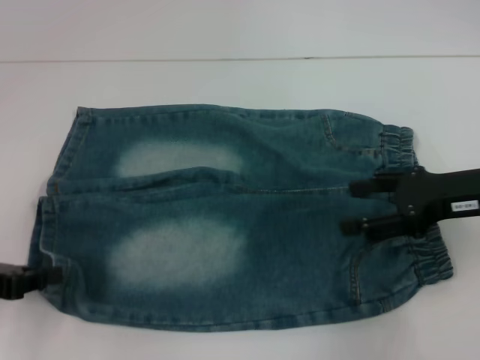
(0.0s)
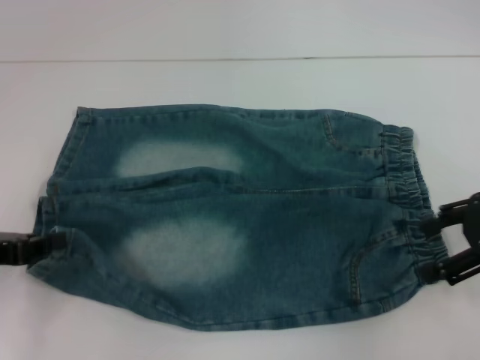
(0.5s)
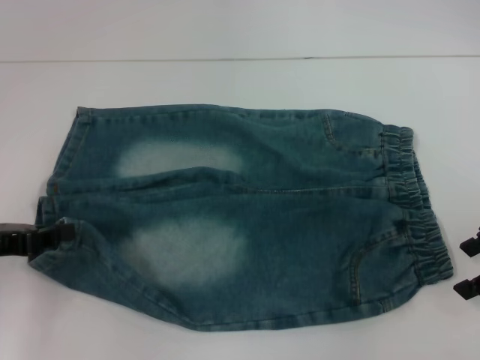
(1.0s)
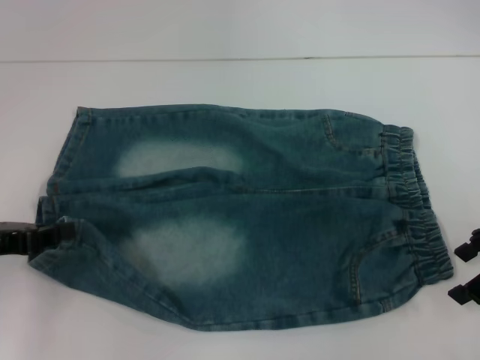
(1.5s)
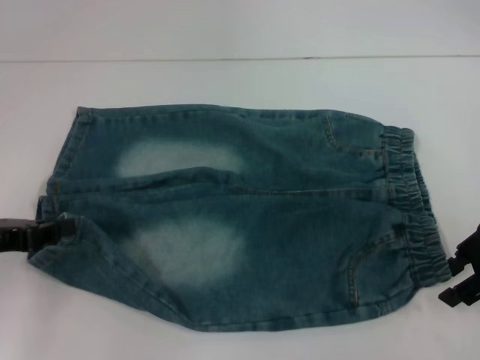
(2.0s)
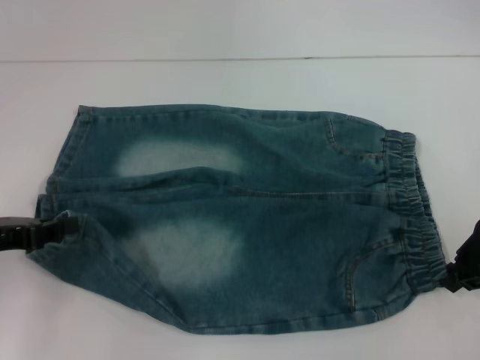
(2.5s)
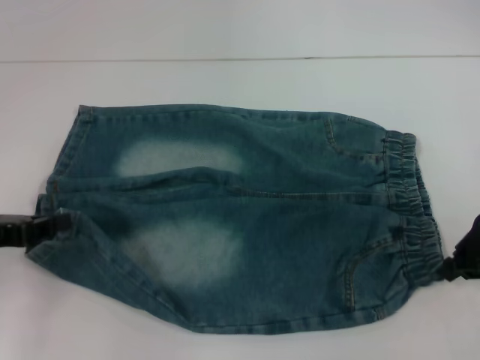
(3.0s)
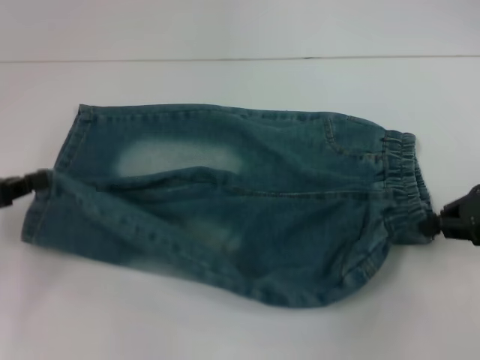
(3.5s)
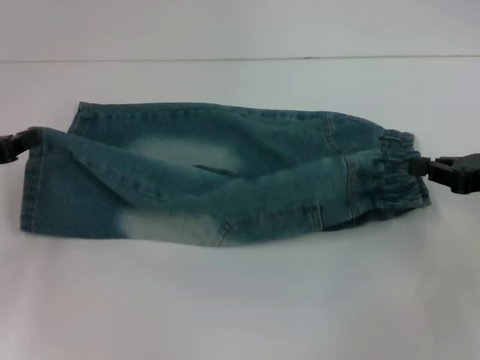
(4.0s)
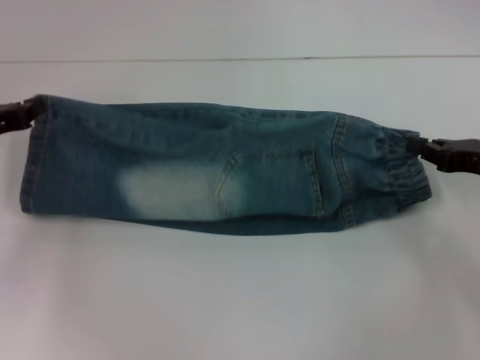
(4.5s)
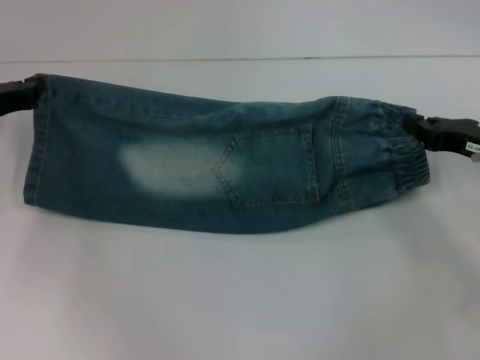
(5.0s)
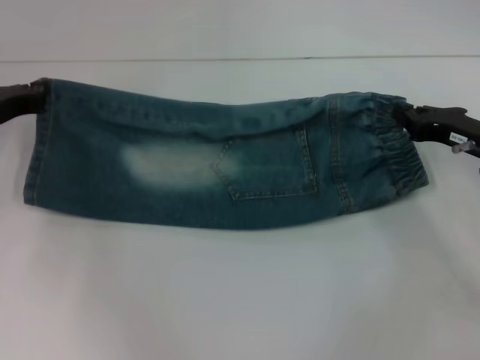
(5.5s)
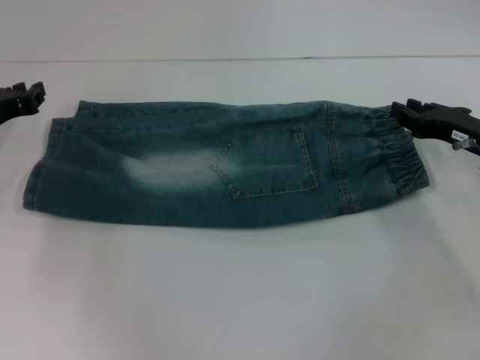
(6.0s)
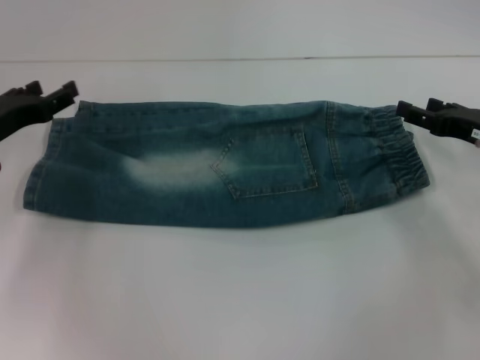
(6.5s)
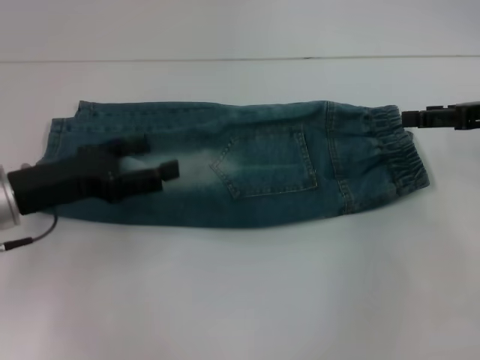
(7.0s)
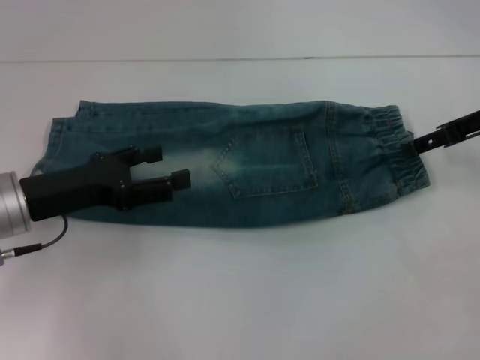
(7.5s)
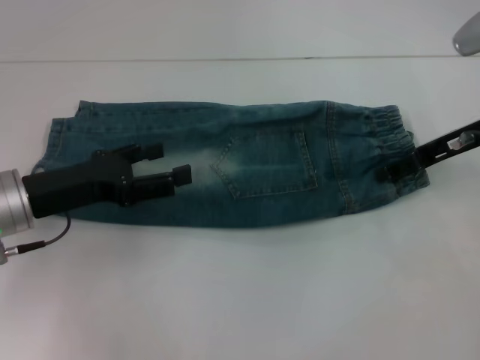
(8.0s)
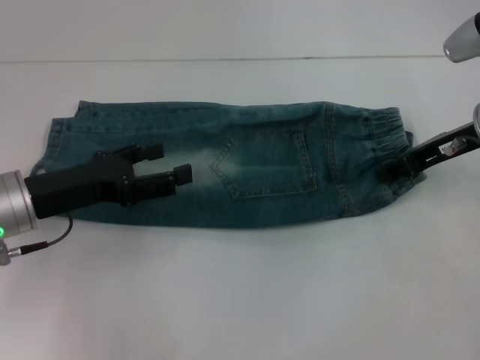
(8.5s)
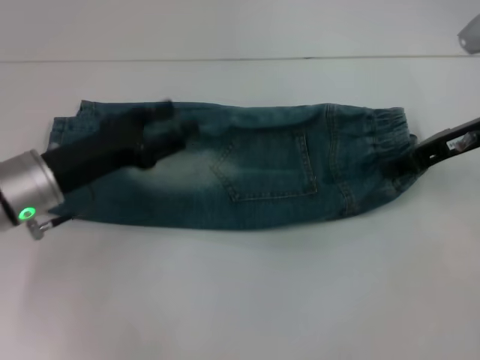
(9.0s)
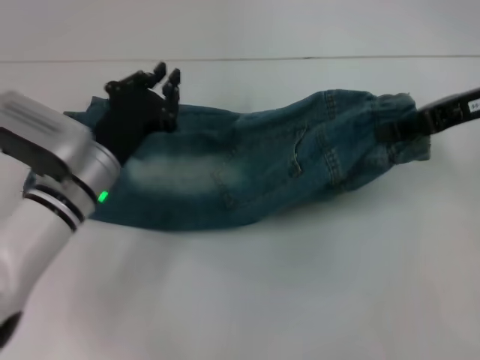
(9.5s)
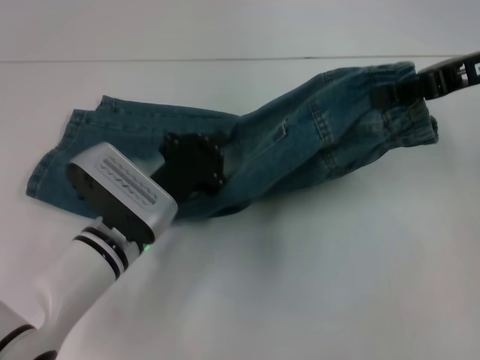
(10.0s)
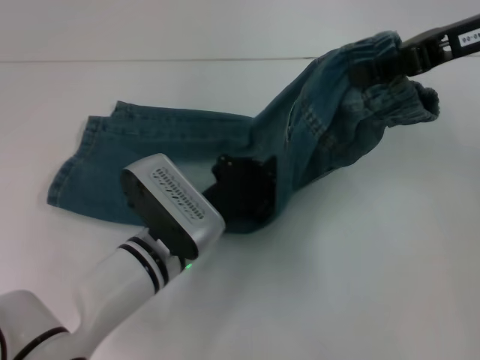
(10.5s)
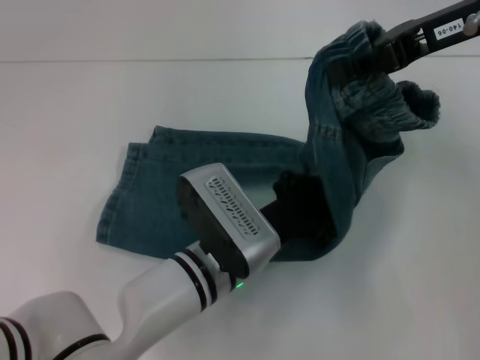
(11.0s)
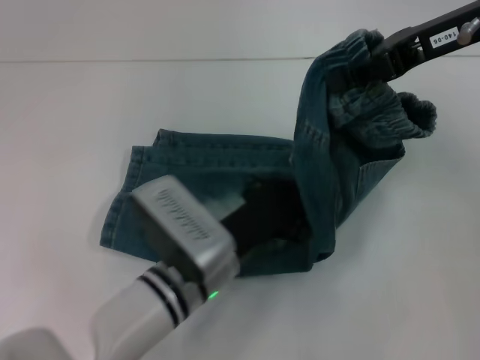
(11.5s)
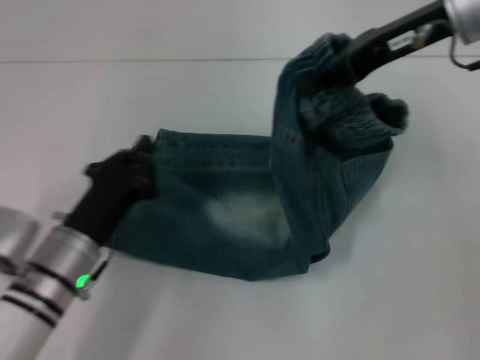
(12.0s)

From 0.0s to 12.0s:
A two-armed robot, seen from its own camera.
Step, from 0.0s to 3.0s: Hold the lower right waistband with your right hand.
Step, from 3.5s to 5.5s: Fold upward with your right hand.
Step, from 6.0s to 8.5s: Grab the waistband with your right hand.
Step, from 9.0s to 11.0s: Press the middle of the pants with your left hand.
From 2.0s to 4.0s: The left gripper moves some 5 cm; the right gripper moves some 5 cm, and closes its fingers.
From 4.0s to 6.0s: Both grippers move forward, roughly 5 cm.
From 6.0s to 8.0s: The left gripper shifts about 10 cm backward and to the right, and opens; the right gripper travels upward by some 5 cm, and opens its fingers.
From 8.0s to 10.0s: The right gripper travels upward by roughly 10 cm, and closes its fingers. Meanwhile the left gripper is displaced to the right and downward by approximately 15 cm, and closes its fingers.
From 10.0s to 12.0s: The right gripper shifts about 10 cm to the left. Meanwhile the left gripper heads to the left, covering some 5 cm.

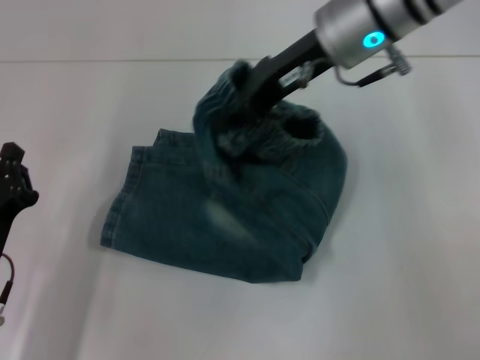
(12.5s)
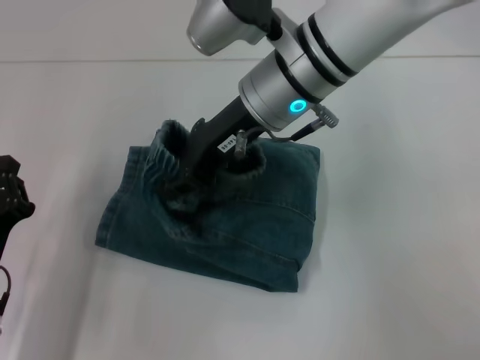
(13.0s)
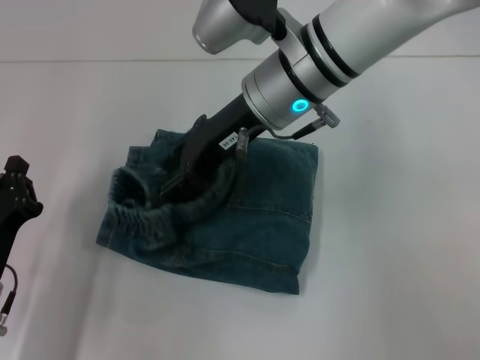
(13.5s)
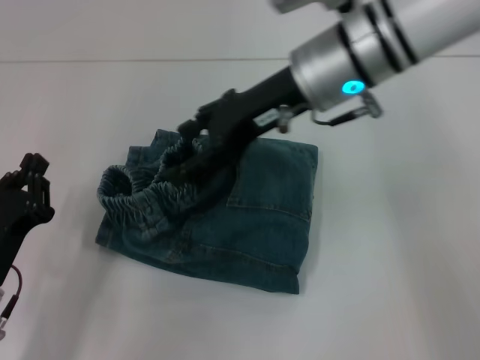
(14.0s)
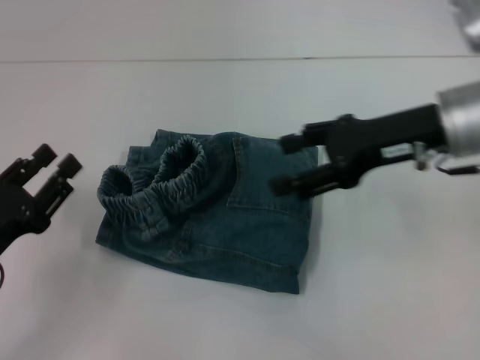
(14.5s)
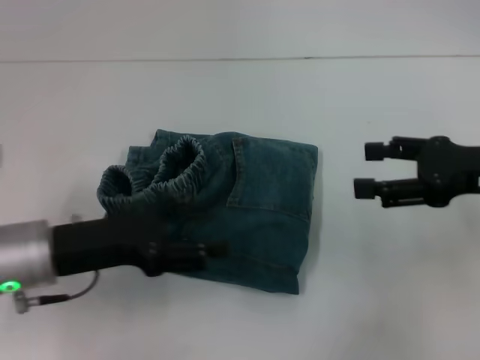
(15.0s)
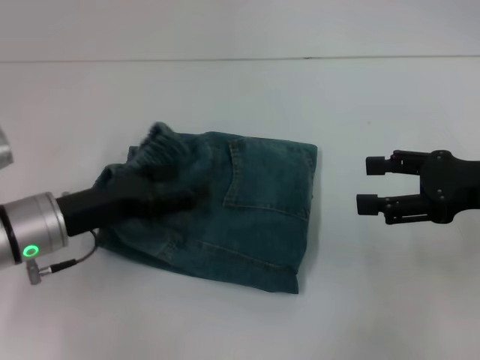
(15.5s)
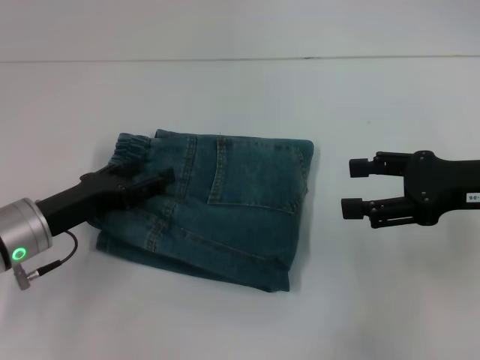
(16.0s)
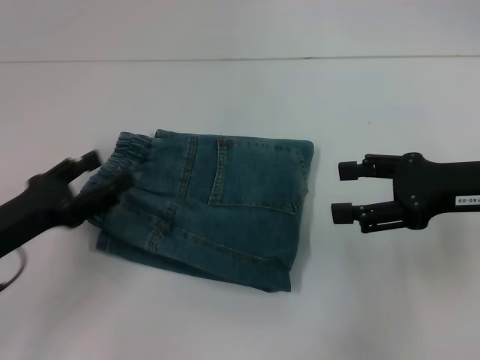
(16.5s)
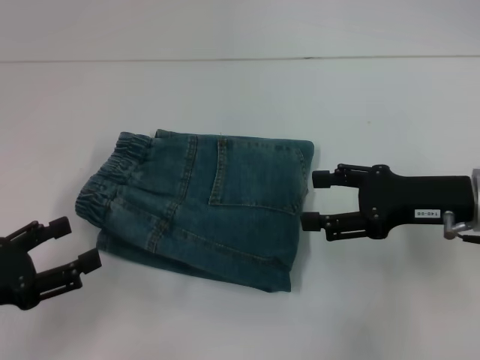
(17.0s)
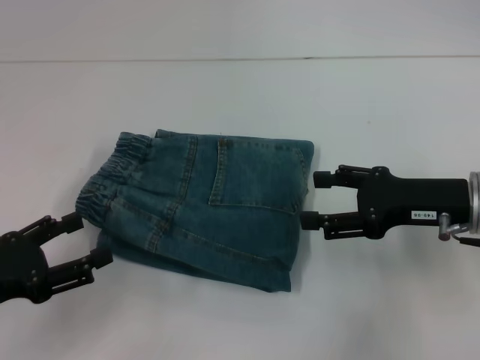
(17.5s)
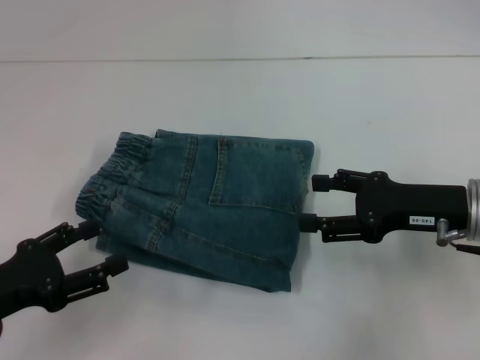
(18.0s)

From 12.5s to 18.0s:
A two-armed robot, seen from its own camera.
Step, from 14.0s to 16.0s: Adjust the pants with your left hand.
From 12.5s to 14.5s: The left gripper opens up; the right gripper heads to the right, backward and downward, covering approximately 15 cm, and opens up.
From 14.5s to 16.0s: The right gripper moves to the right, about 5 cm; the left gripper is displaced forward by some 10 cm, and opens.
From 16.0s to 18.0s: The left gripper travels backward and to the left by about 10 cm, while the right gripper ends up some 5 cm from where it was.

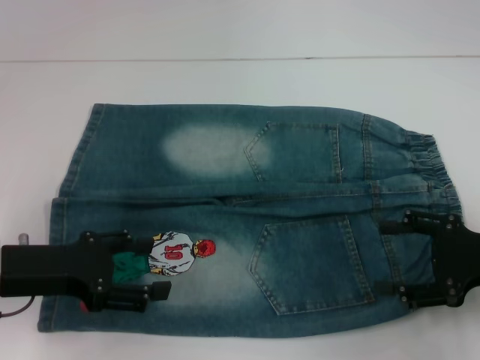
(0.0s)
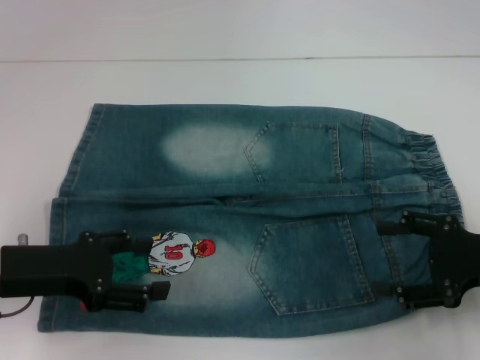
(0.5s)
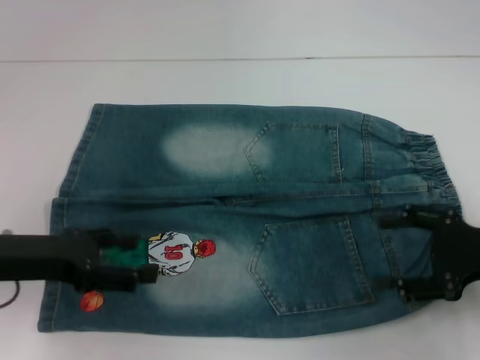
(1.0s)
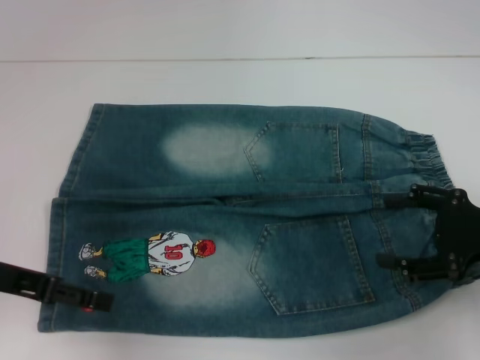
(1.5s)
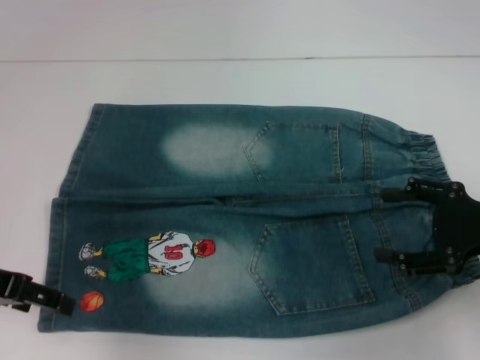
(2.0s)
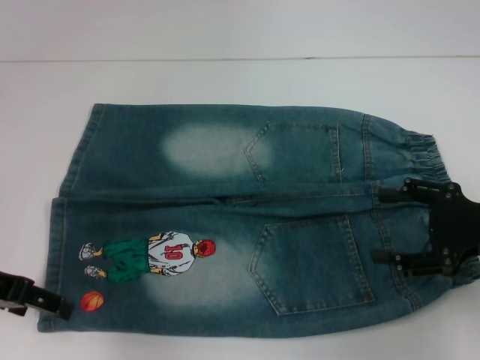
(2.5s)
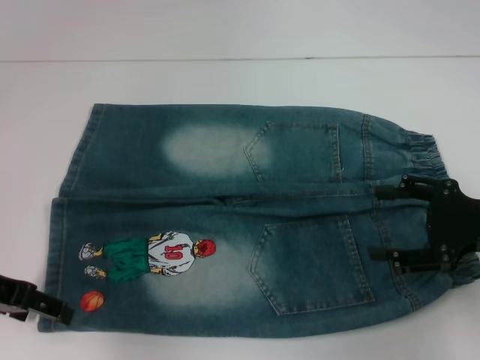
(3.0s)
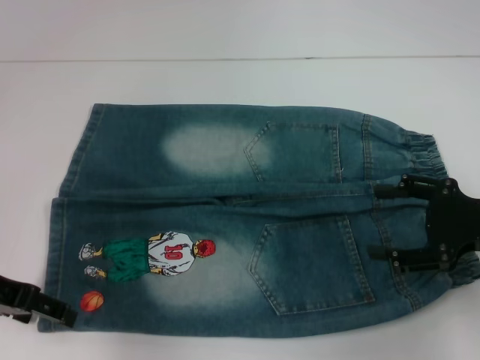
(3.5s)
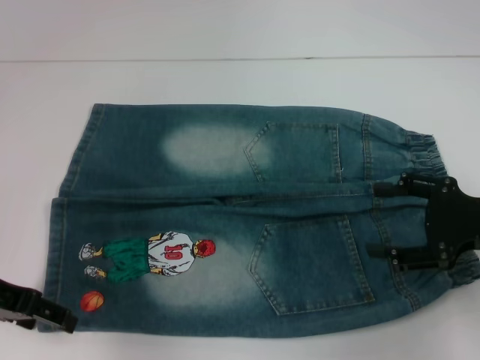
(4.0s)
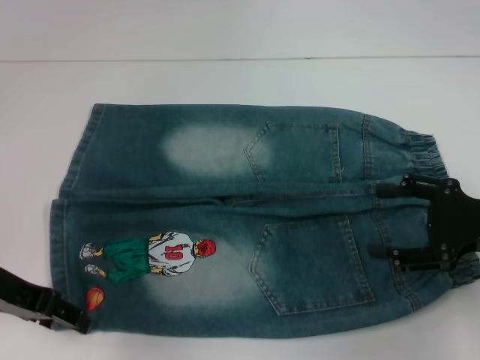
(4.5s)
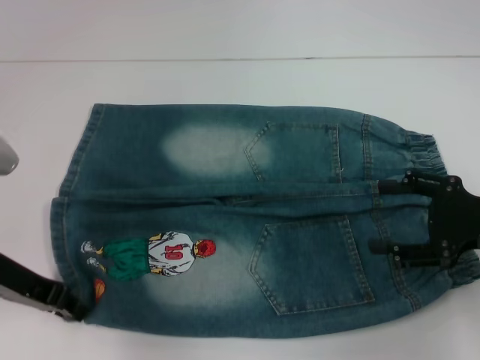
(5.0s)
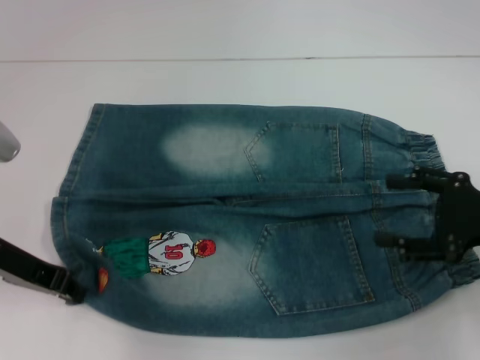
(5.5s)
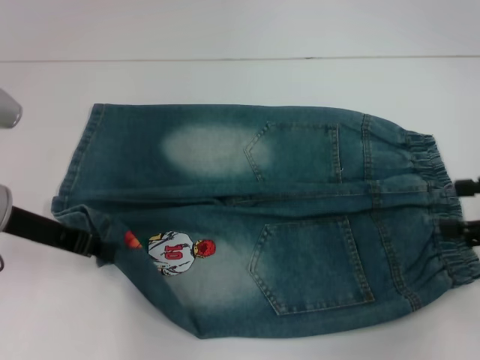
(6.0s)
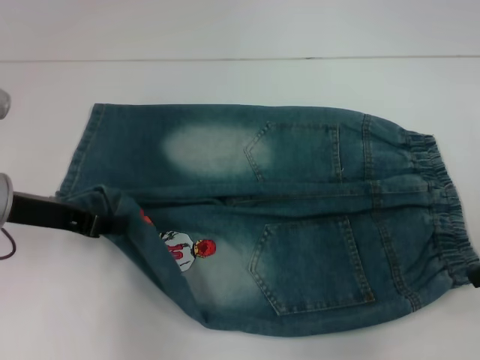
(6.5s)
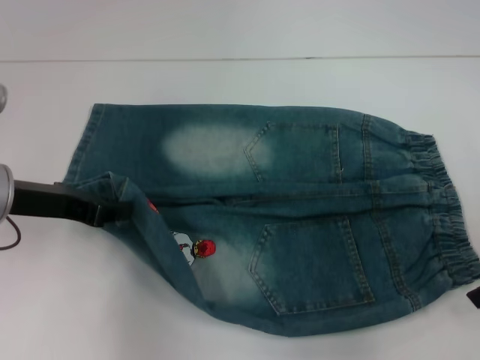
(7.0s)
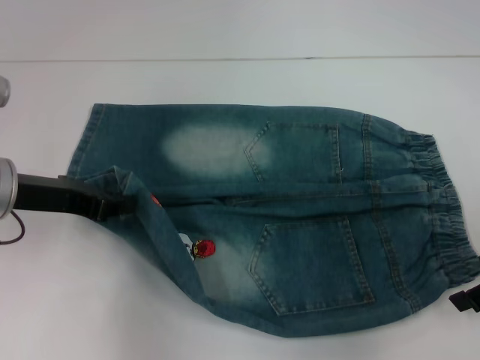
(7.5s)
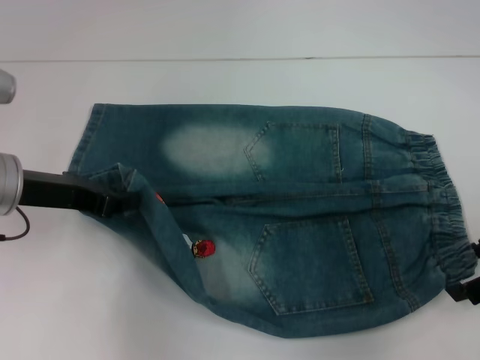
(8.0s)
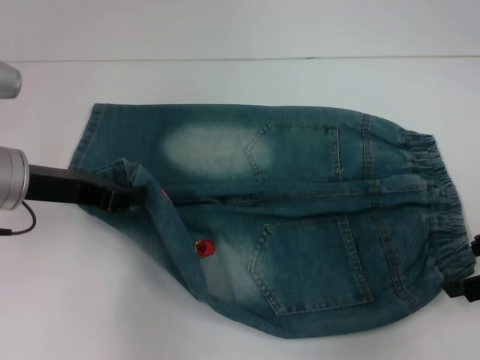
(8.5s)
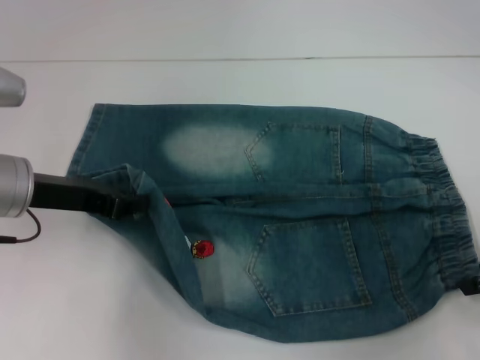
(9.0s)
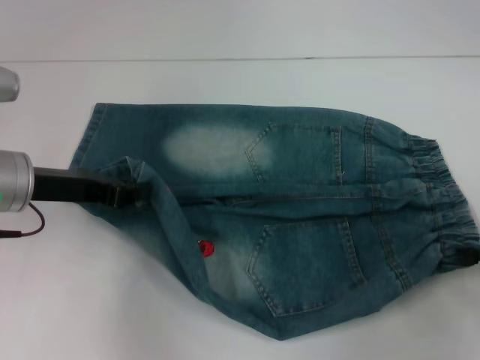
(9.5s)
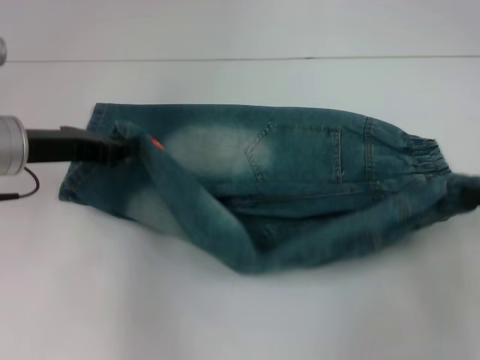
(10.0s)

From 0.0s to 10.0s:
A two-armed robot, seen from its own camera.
Step, from 0.0s to 5.0s: Grab the lower left pant leg with your left hand.
Step, from 5.5s to 9.0s: Hold the lower right waistband with your right hand.
From 0.0s to 2.0s: The left gripper is displaced upward by approximately 5 cm.
From 2.0s to 4.0s: The grippers make only small movements.
From 4.0s to 6.0s: The left gripper changes place by approximately 5 cm, and closes its fingers. Meanwhile the right gripper shifts by approximately 5 cm.
From 8.0s to 10.0s: The right gripper closes.
